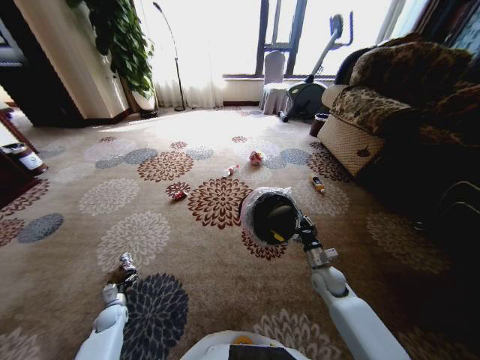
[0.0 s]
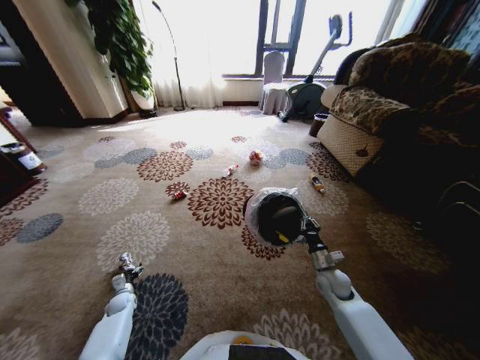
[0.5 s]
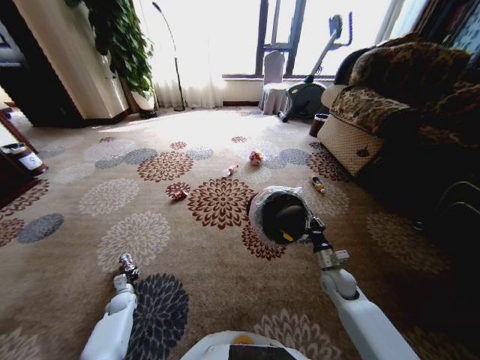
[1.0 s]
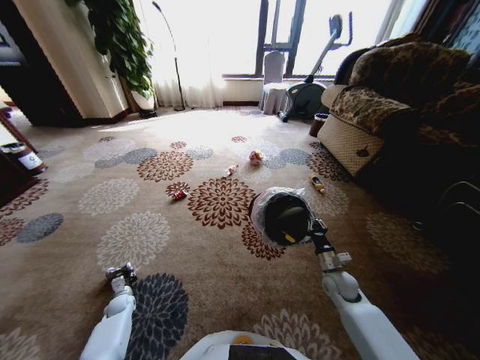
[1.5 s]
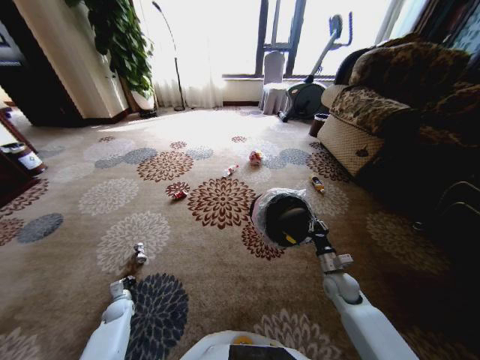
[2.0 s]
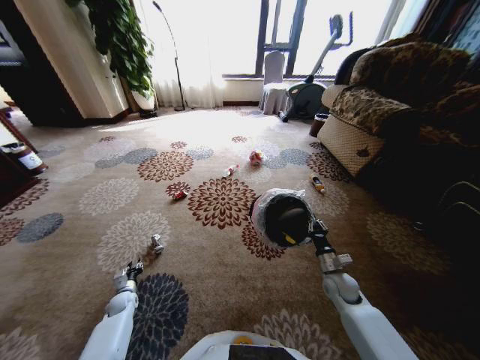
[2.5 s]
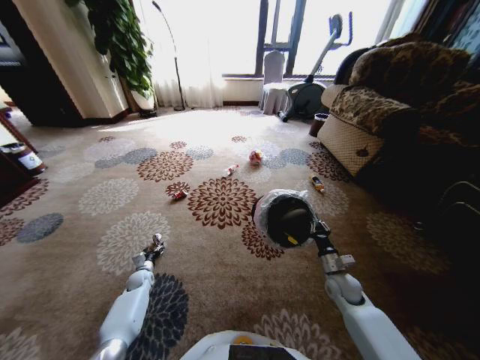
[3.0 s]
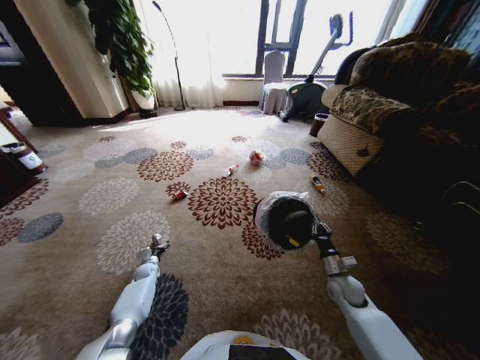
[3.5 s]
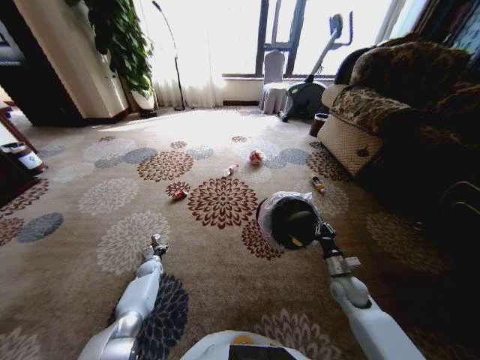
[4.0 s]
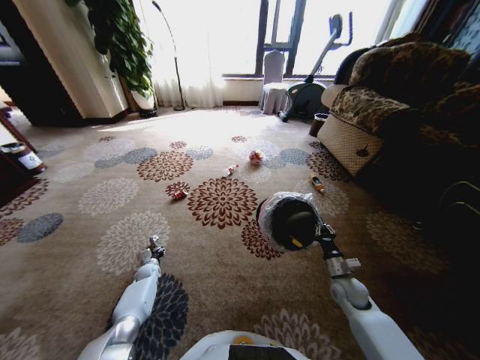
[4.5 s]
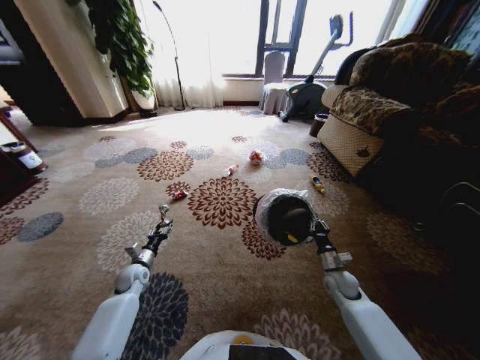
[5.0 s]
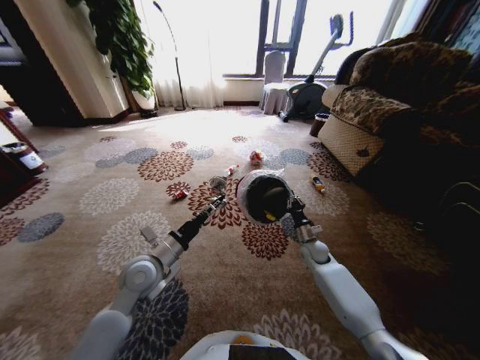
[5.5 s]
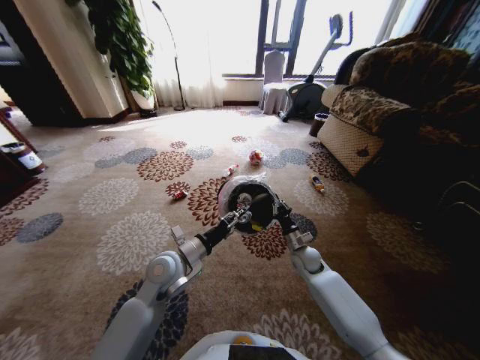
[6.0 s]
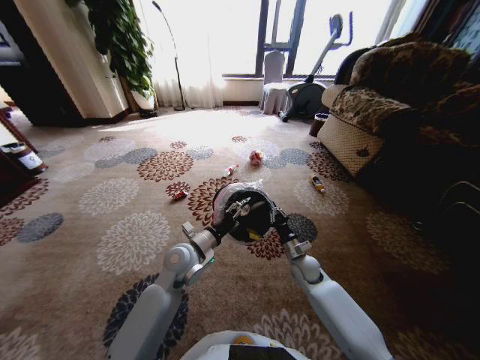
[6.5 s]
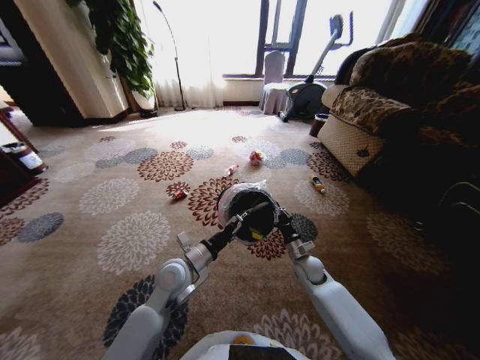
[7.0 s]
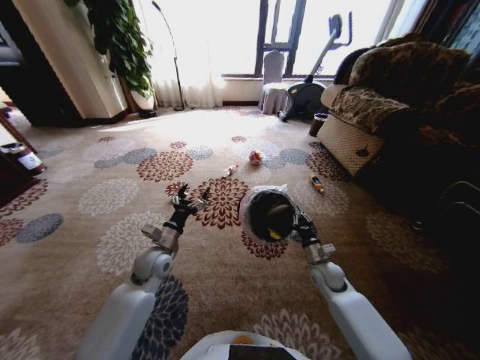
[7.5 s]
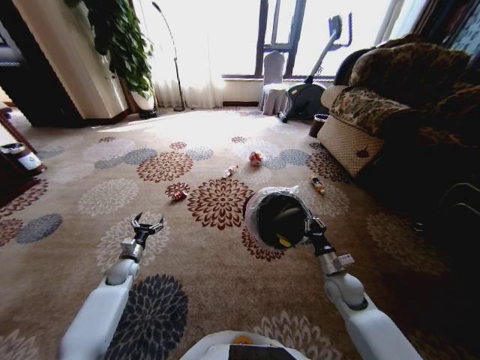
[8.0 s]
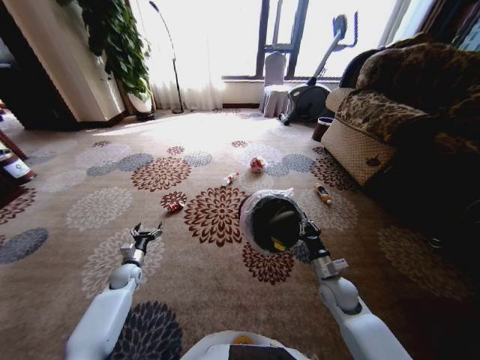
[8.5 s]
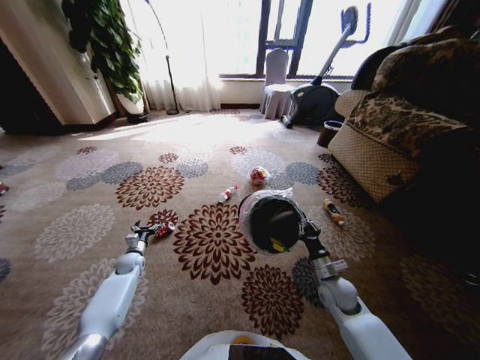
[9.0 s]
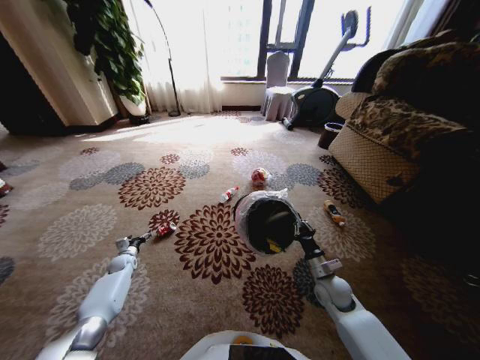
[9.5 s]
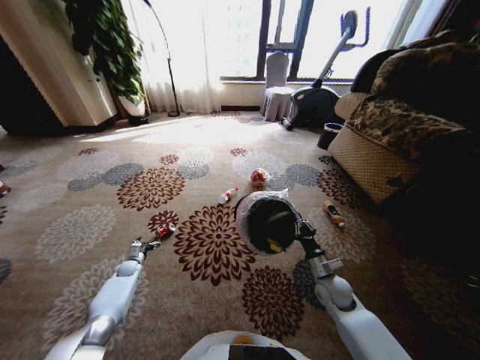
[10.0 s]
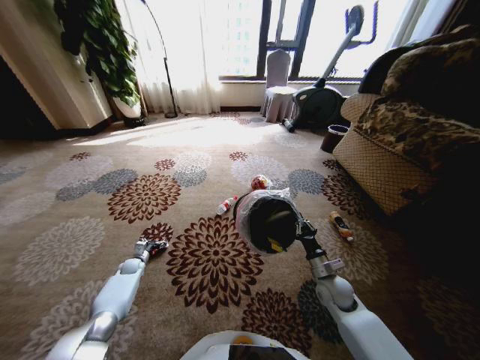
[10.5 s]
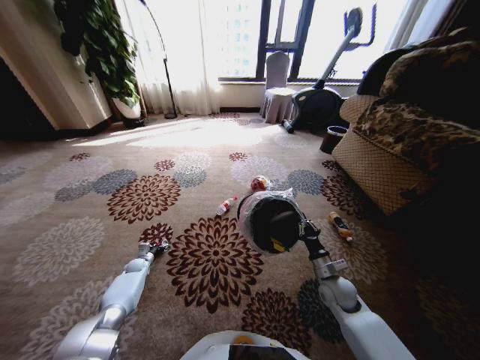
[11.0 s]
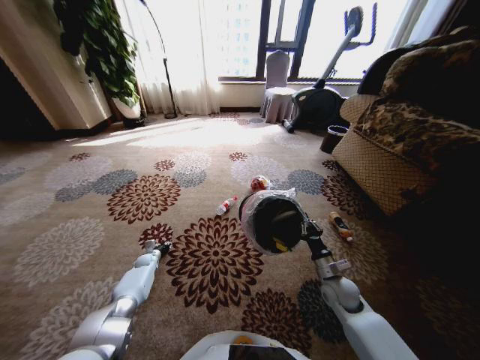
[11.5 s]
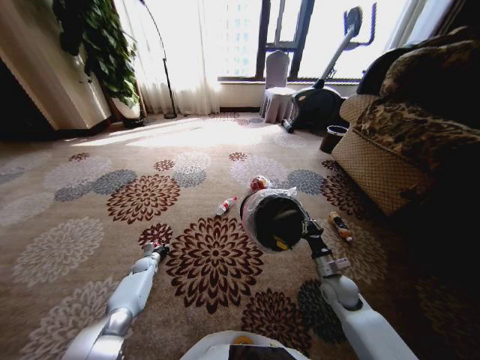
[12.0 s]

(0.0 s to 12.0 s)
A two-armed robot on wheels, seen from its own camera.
Task of the whole recording: Pick up the trash from the ground and place it into the trash bin.
0.0 s - 2.0 s: The left gripper closes up.
2.0 s - 4.0 s: The left gripper is displaced forward and to the right by approximately 15 cm, and opens.
4.0 s - 6.0 s: The left gripper goes about 40 cm upward and to the right. The right gripper is displaced to the left and forward by about 15 cm.
6.0 s - 8.0 s: The left gripper shifts approximately 30 cm to the left and downward, and opens, while the right gripper moves backward and to the right, about 10 cm.
8.0 s - 10.0 s: The left gripper heads downward, covering roughly 10 cm.
10.0 s - 12.0 s: The left gripper goes approximately 5 cm to the right, and closes up.

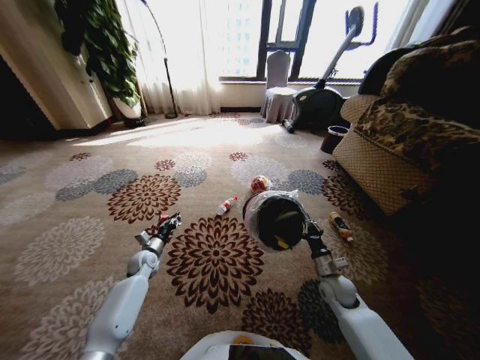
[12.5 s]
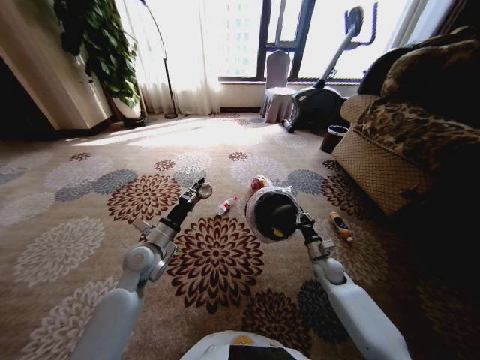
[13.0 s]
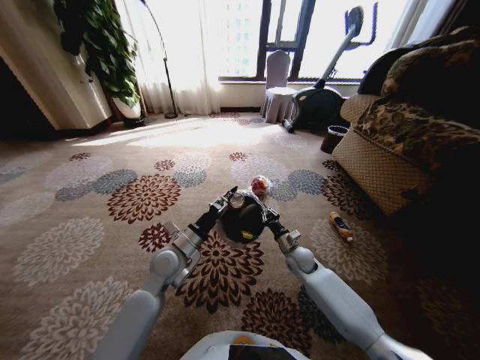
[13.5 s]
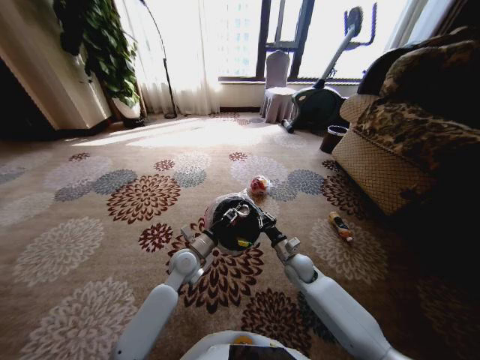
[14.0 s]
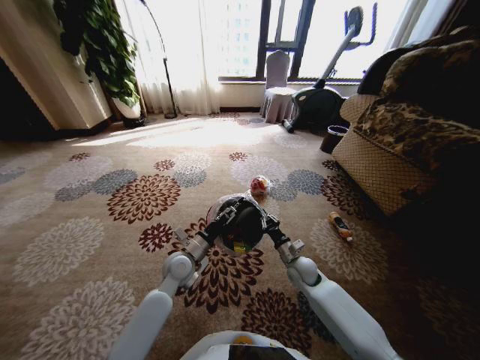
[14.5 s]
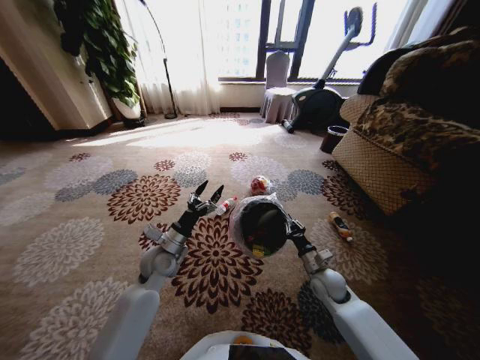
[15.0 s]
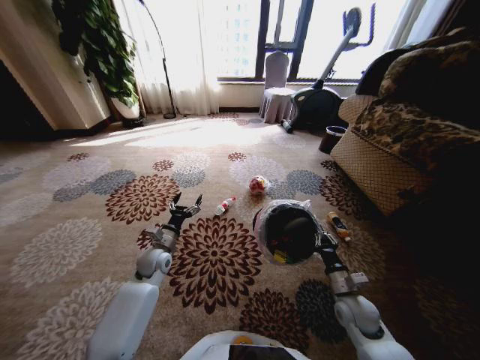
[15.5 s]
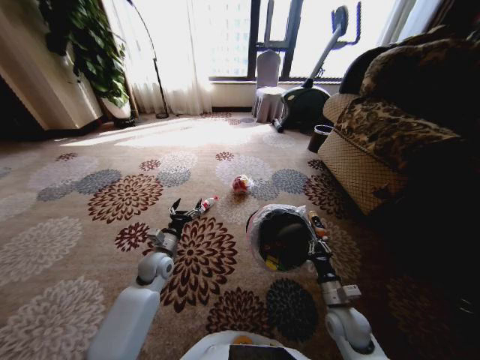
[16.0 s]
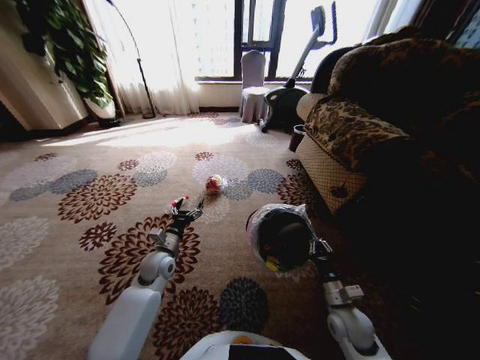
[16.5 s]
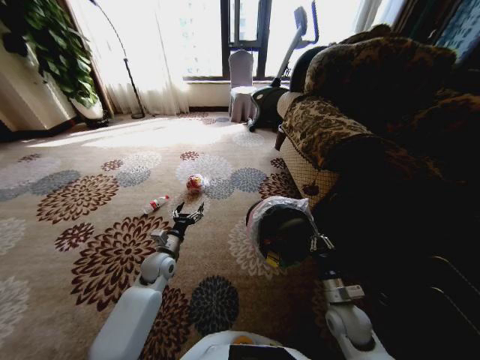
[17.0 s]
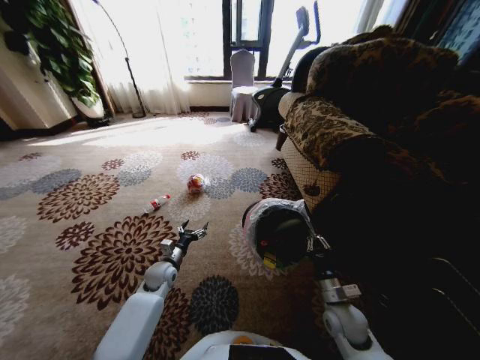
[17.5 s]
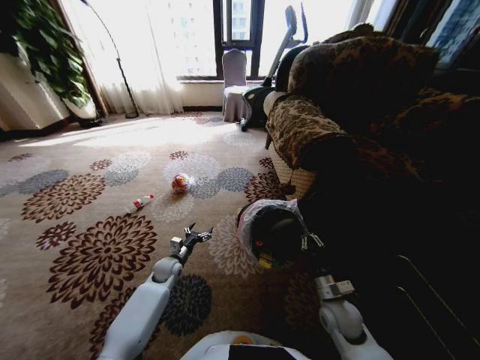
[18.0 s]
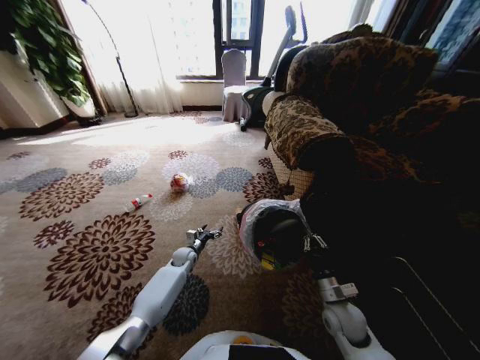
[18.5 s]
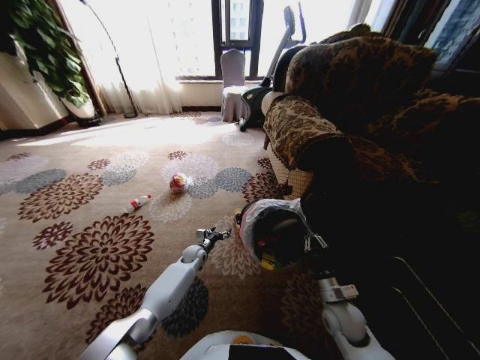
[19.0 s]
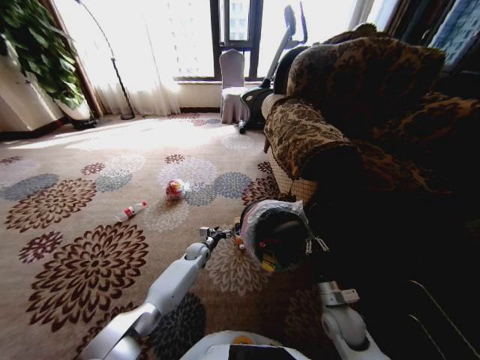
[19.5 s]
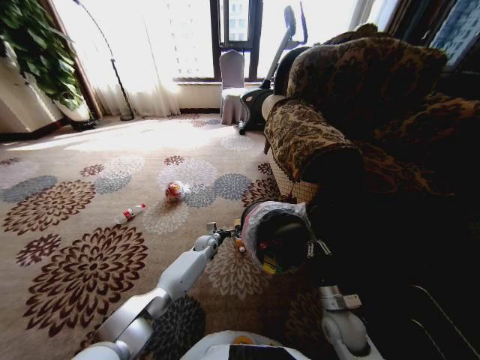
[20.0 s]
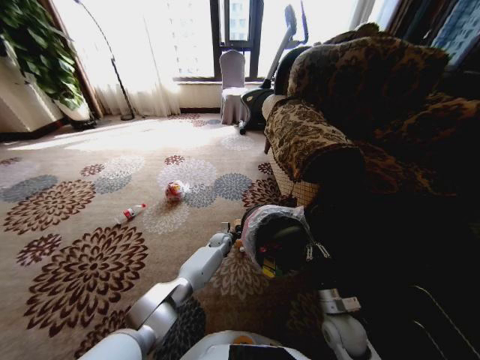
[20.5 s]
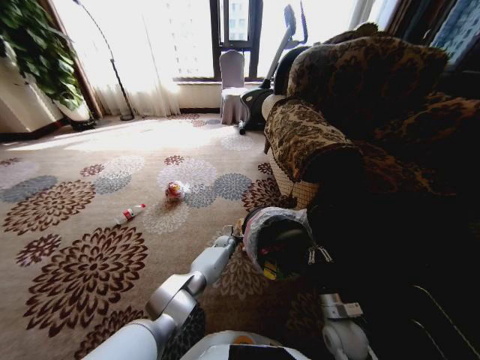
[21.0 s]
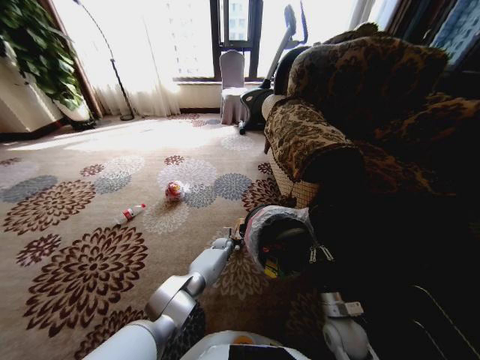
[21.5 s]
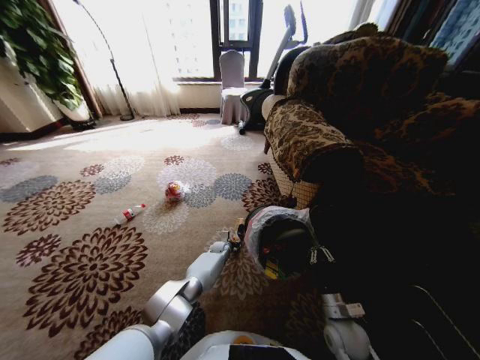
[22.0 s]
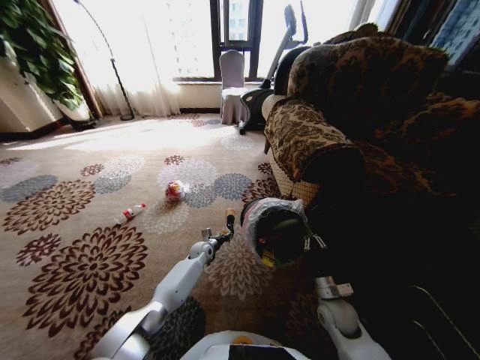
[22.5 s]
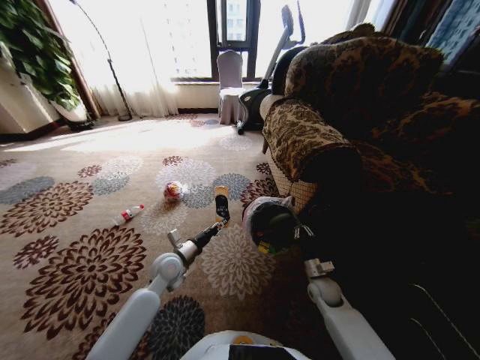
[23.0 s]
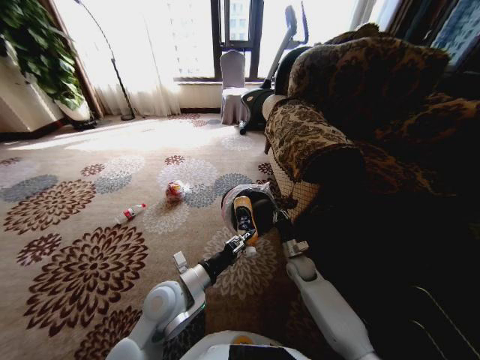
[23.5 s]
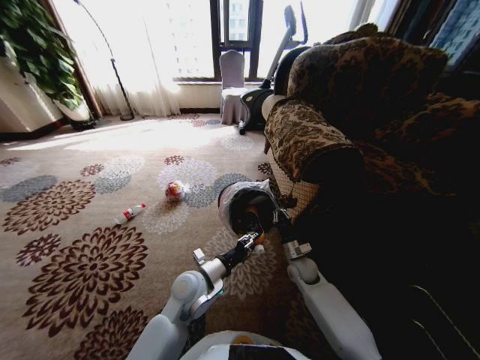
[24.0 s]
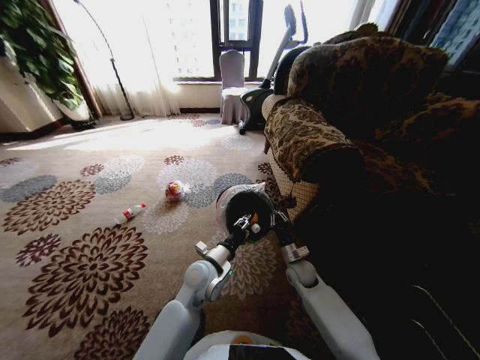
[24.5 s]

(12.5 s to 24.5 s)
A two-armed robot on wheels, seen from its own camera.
Task of the whole recording: Pick up the trash from the ground and place it into the trash bin.
12.5 s - 14.5 s: The right gripper travels to the left and forward by roughly 10 cm. Meanwhile the left gripper goes some 20 cm to the right and upward, and opens.
14.5 s - 16.5 s: The left gripper moves to the left, roughly 10 cm. Meanwhile the right gripper heads backward and to the right, covering some 15 cm.
16.5 s - 18.5 s: The left gripper heads downward and forward, covering roughly 15 cm.
18.5 s - 20.5 s: The left gripper moves to the right and forward, about 15 cm.
20.5 s - 22.5 s: The left gripper goes about 10 cm to the left and backward, and closes up.
22.5 s - 24.5 s: The right gripper travels forward and to the left by some 15 cm. Meanwhile the left gripper travels upward, backward and to the right by roughly 25 cm.

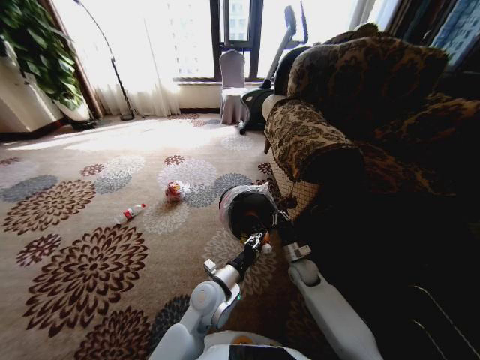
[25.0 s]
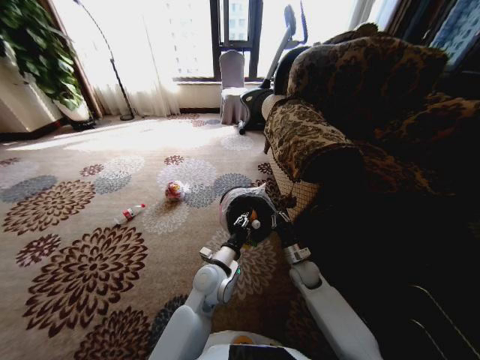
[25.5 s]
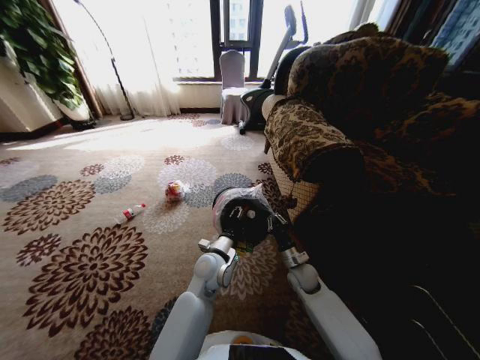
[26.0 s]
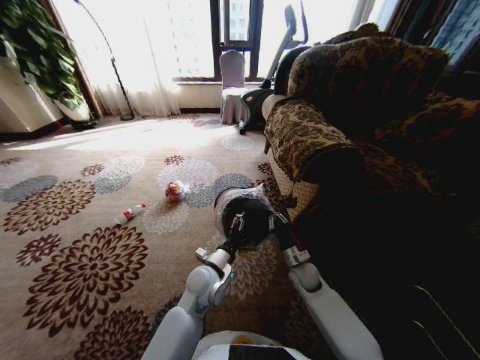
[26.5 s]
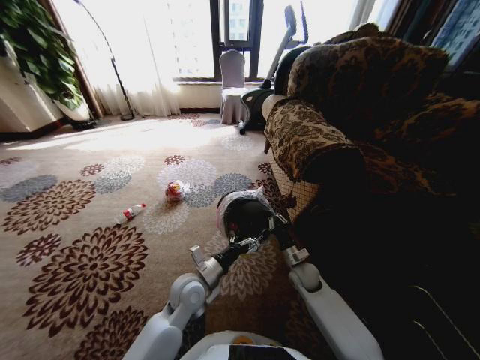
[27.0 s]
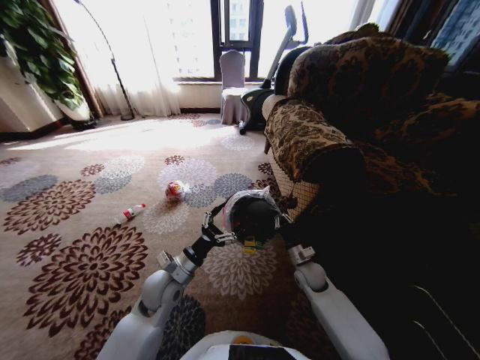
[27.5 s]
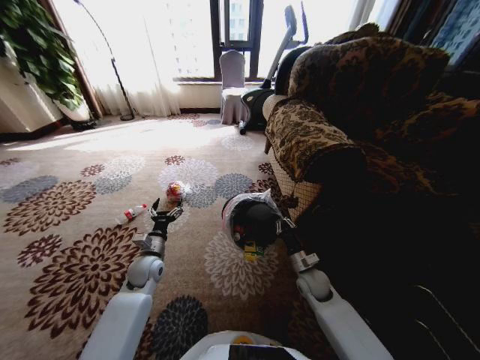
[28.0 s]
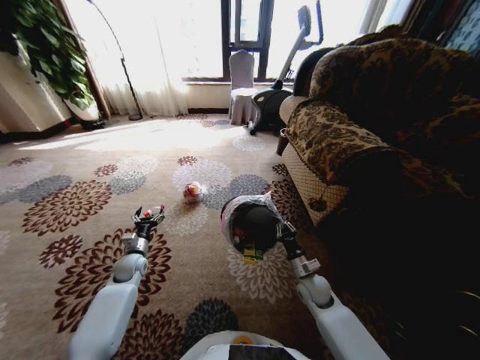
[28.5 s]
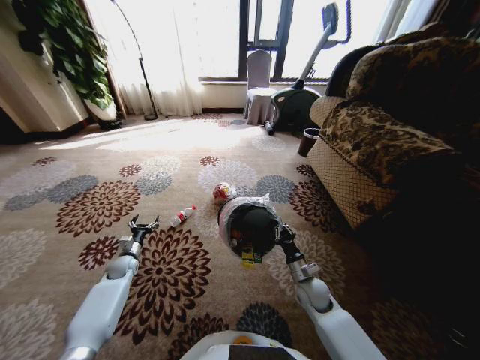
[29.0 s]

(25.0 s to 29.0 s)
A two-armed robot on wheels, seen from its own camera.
Task of the whole recording: Pick up the trash from the ground and place it into the trash bin.
25.0 s - 27.0 s: The left gripper travels to the left by approximately 5 cm, and opens its fingers.
27.0 s - 29.0 s: The left gripper shifts roughly 35 cm to the left and downward. The right gripper travels backward by some 5 cm.
